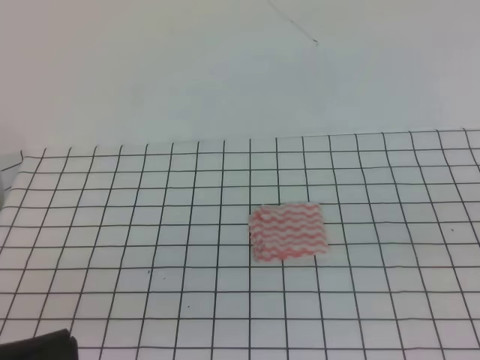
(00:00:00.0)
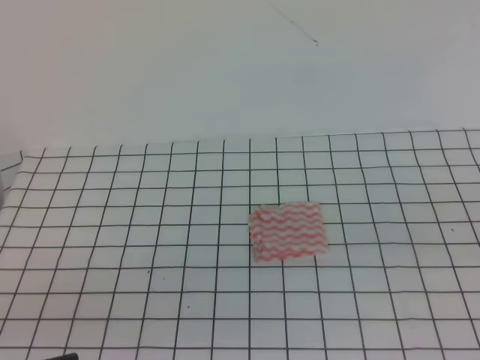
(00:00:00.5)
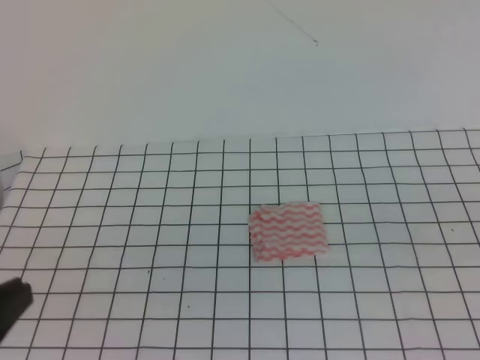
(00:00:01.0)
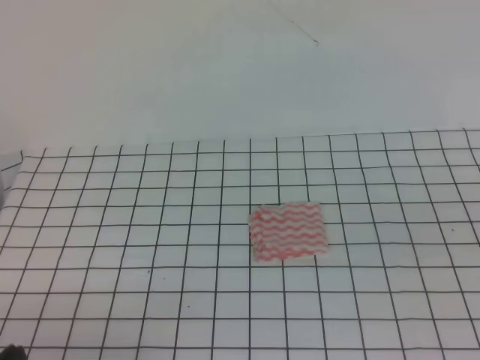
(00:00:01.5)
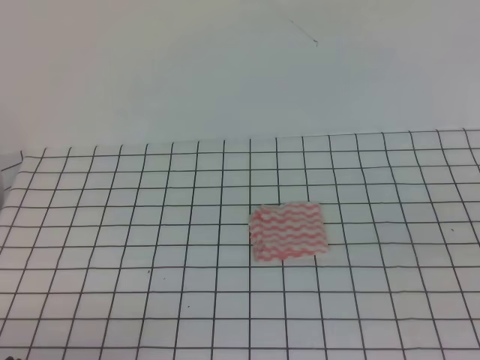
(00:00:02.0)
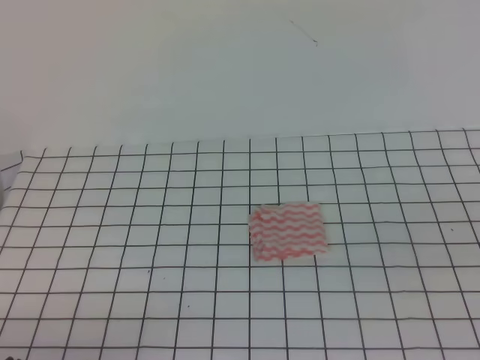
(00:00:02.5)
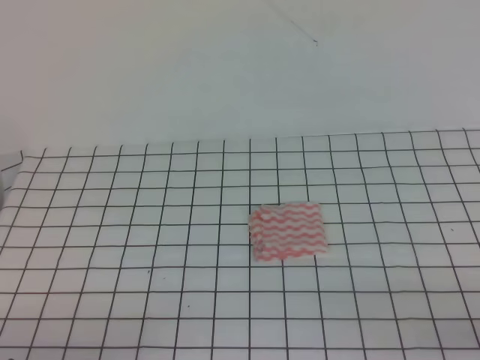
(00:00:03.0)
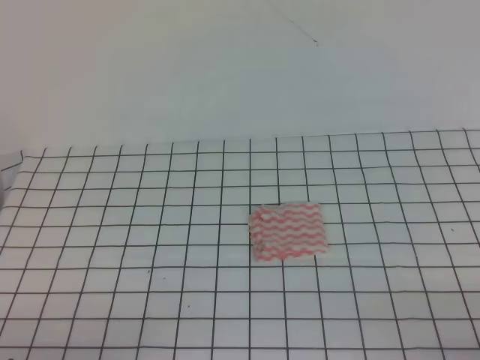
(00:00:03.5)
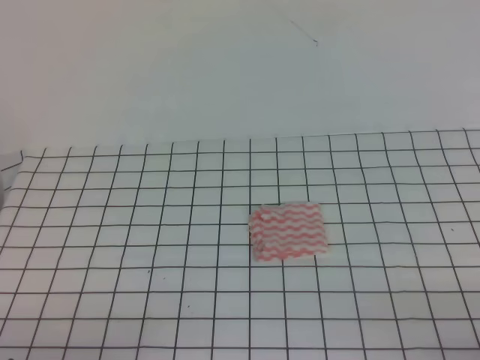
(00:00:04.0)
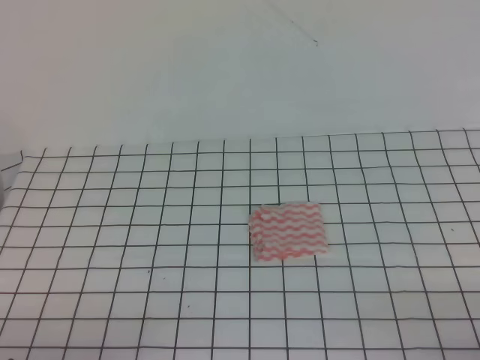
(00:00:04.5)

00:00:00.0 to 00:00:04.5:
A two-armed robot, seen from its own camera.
Step, 00:00:00.0 to 00:00:04.5: Fold the towel.
00:00:00.0 to 00:00:02.0: The left gripper goes about 15 cm downward.
